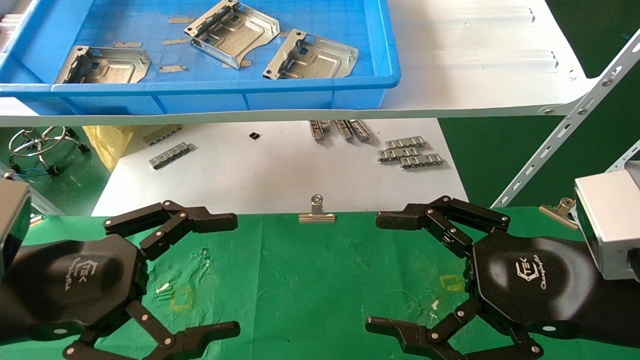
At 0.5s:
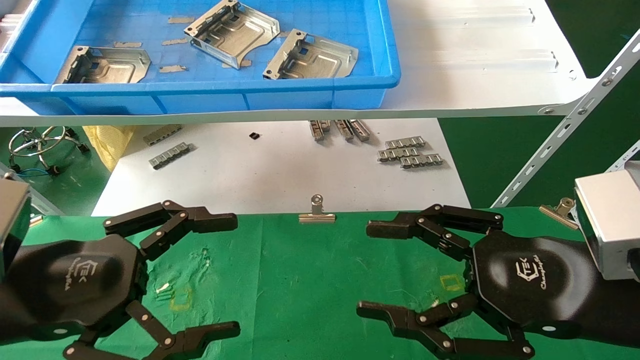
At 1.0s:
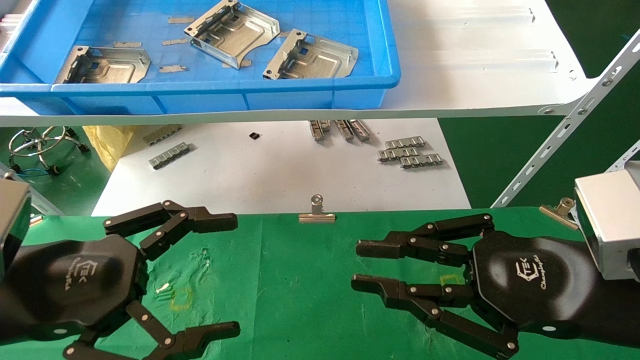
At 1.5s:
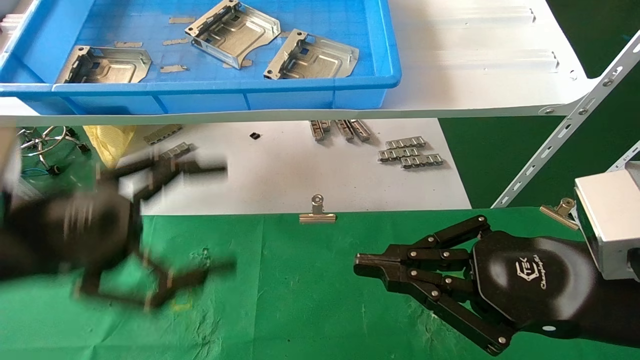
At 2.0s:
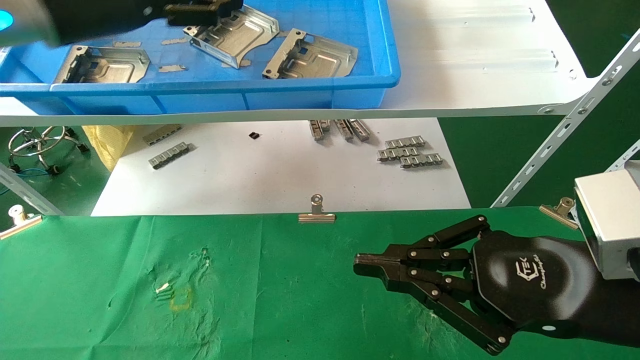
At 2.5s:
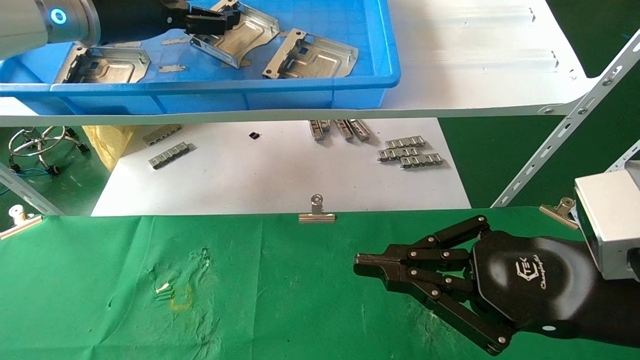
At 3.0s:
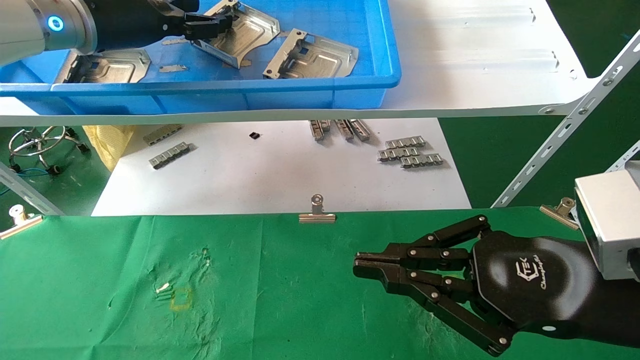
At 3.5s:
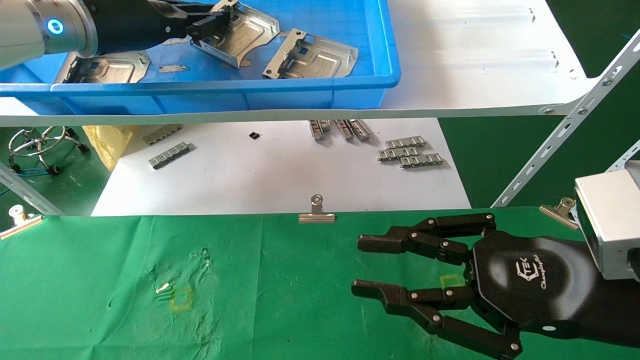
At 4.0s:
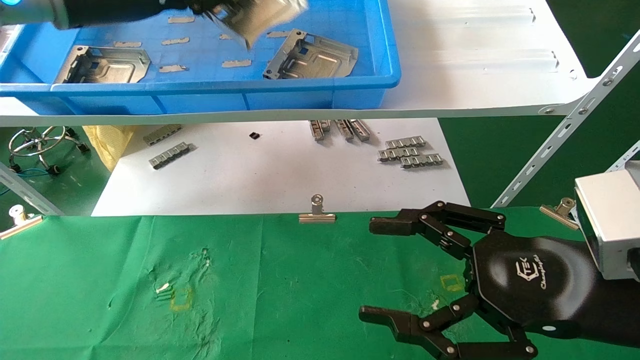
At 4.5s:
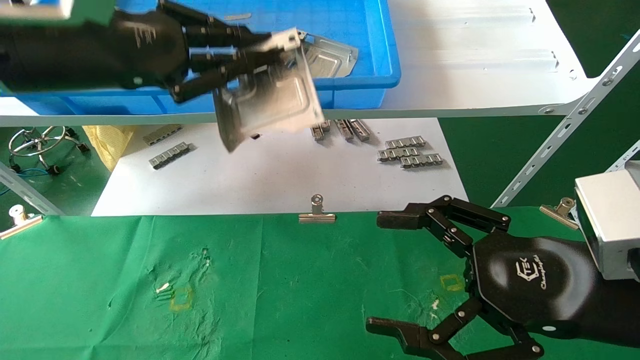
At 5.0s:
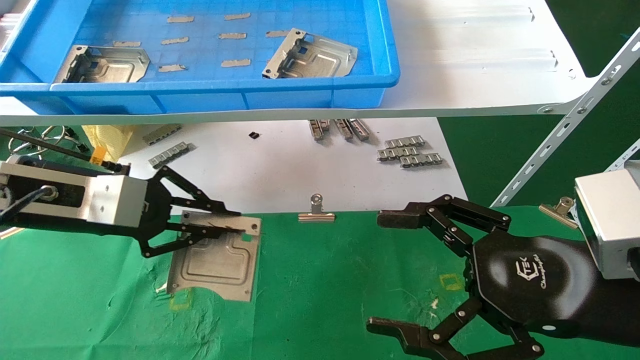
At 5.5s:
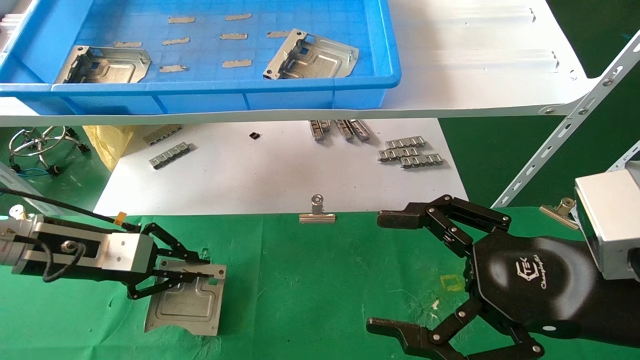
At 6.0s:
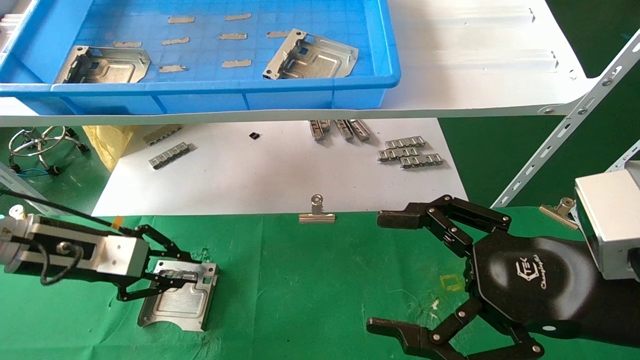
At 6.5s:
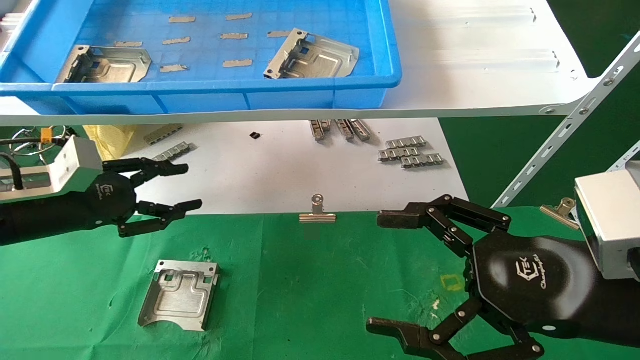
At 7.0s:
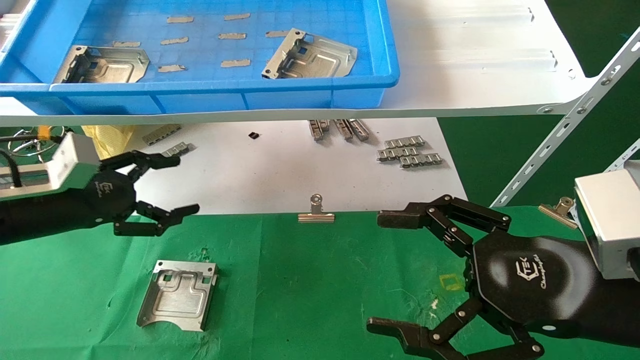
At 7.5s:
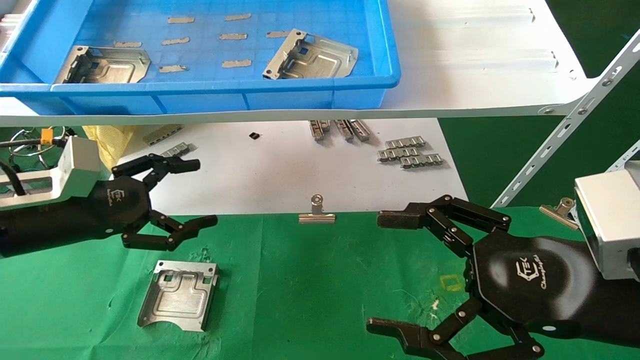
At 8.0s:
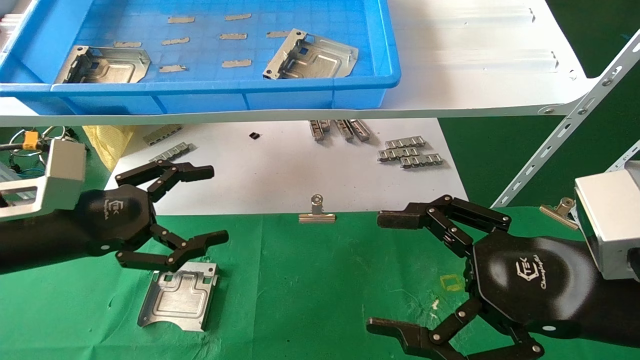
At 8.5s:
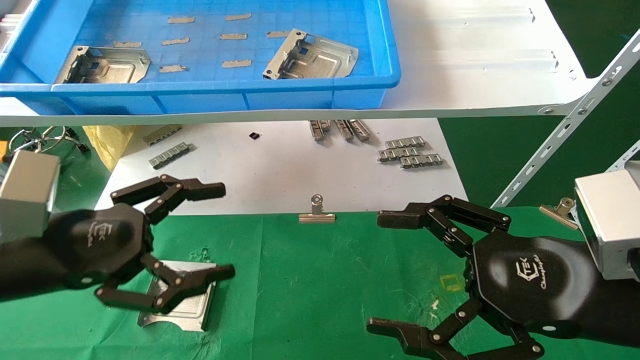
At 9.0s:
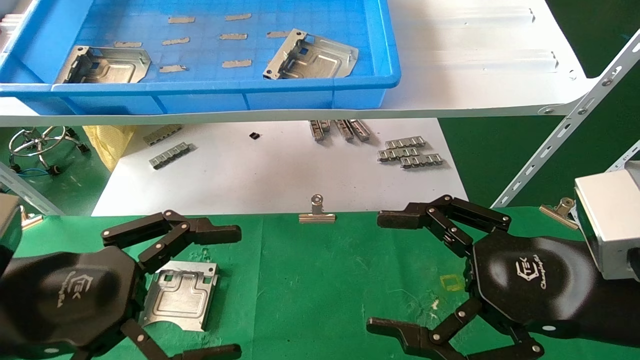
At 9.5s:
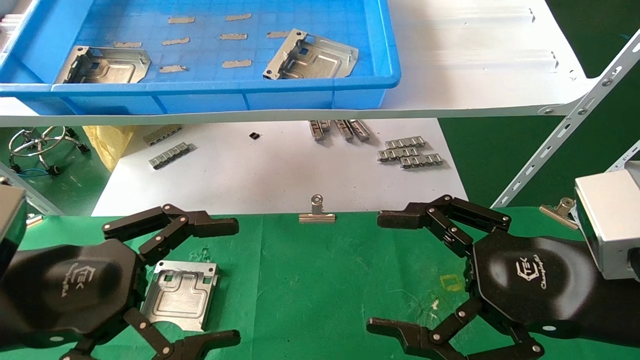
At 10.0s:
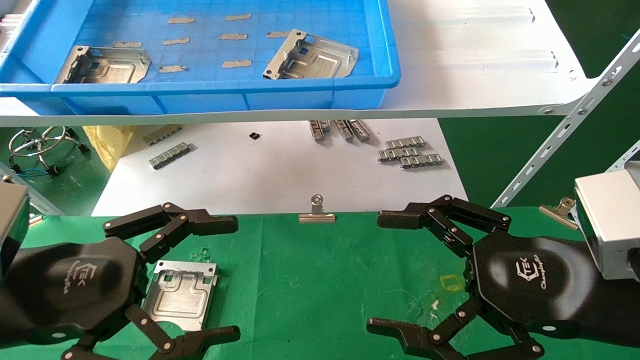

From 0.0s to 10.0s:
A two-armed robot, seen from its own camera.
Task of the whole recording: use the mechanical arm to pick up the parts and place them on the table.
Step, from 2.0s to 3.5s: Pick up the hard drive bracket from the feeding area.
Step, from 4.0s to 6.0s: Place the hard drive bracket into the box.
From 0.0s to 2.0s: The right gripper closes. Meanwhile the left gripper travels upward and forward by approximately 30 cm.
From 2.0s to 4.0s: The right gripper opens up. The left gripper closes its fingers.
From 4.0s to 6.0s: The left gripper is displaced downward by about 25 cm, while the right gripper opens its fingers.
From 6.0s to 8.0s: The left gripper travels backward by about 5 cm, and opens up.
From 8.0s to 10.0s: The left gripper is displaced backward by about 10 cm.

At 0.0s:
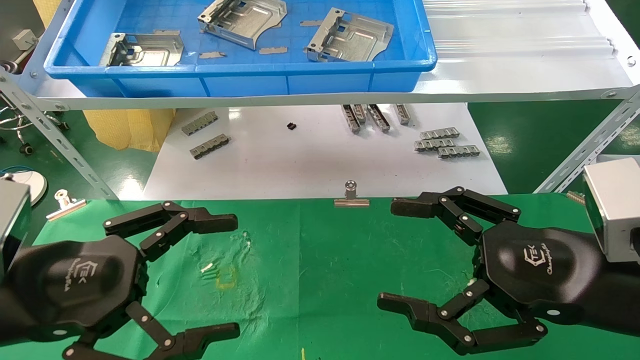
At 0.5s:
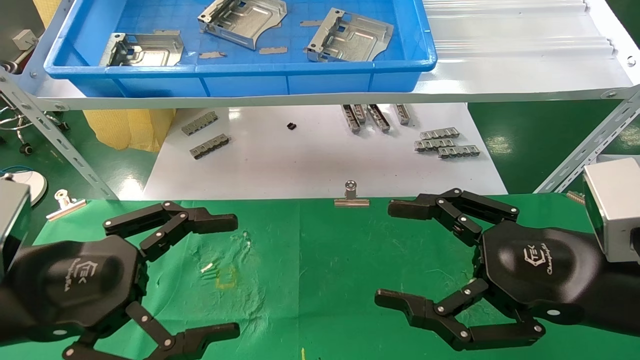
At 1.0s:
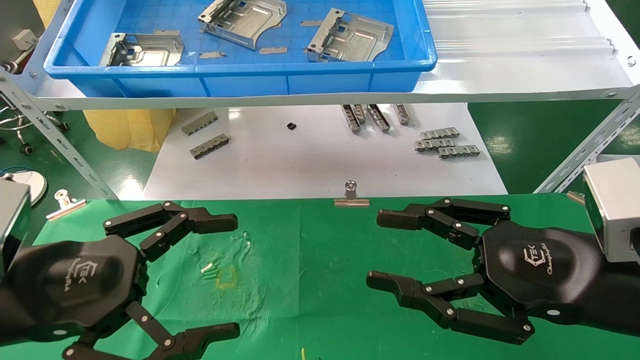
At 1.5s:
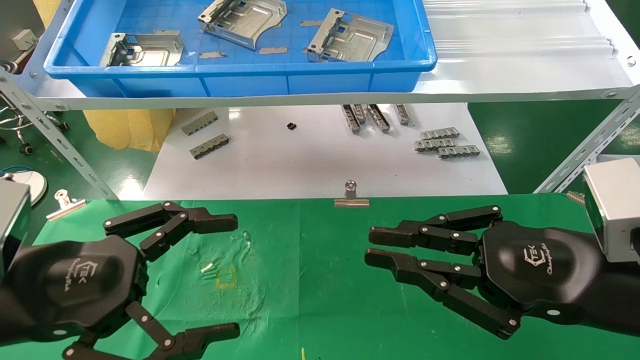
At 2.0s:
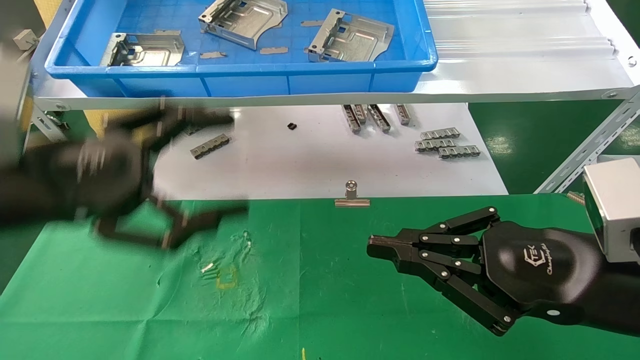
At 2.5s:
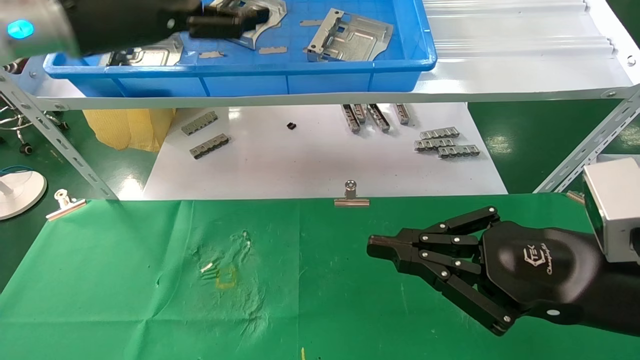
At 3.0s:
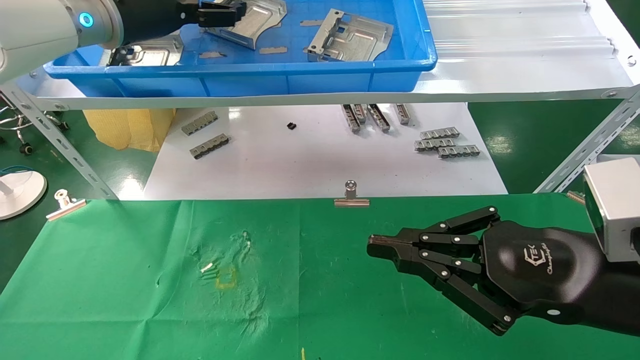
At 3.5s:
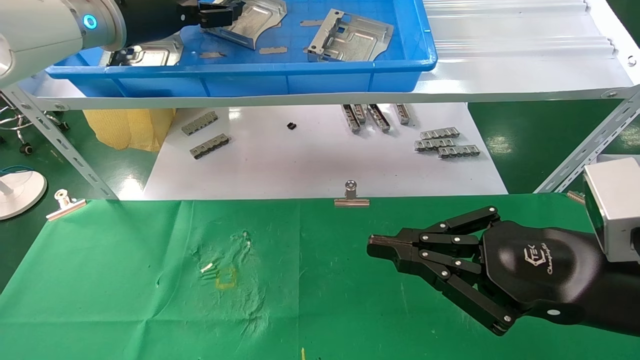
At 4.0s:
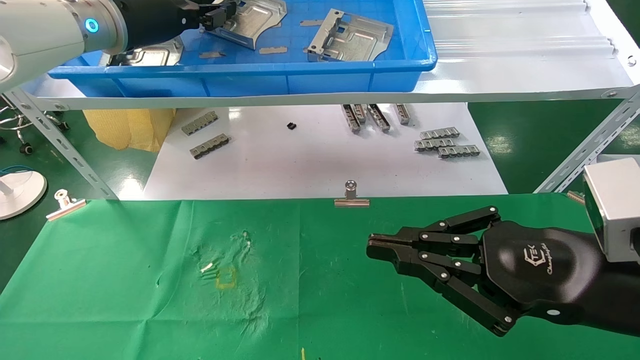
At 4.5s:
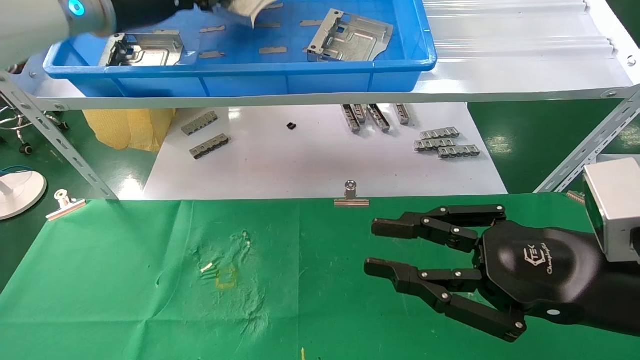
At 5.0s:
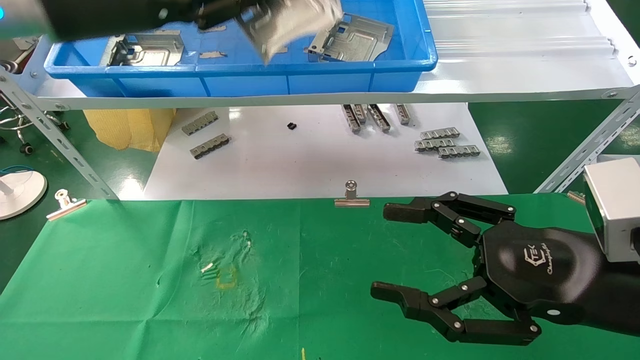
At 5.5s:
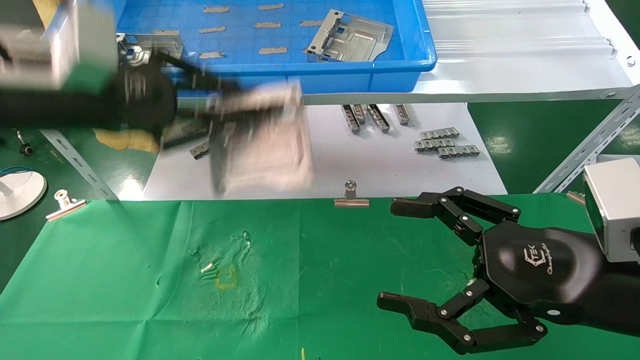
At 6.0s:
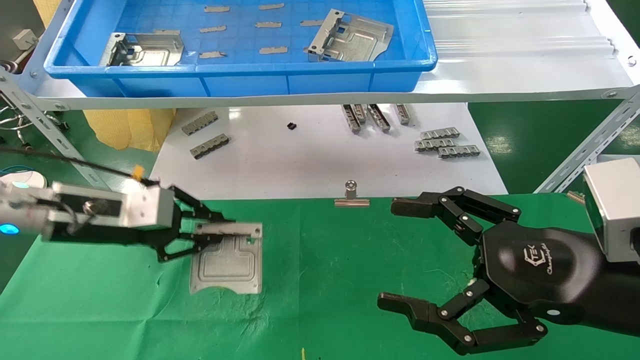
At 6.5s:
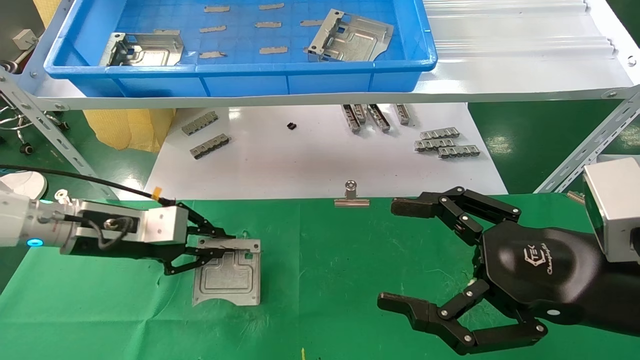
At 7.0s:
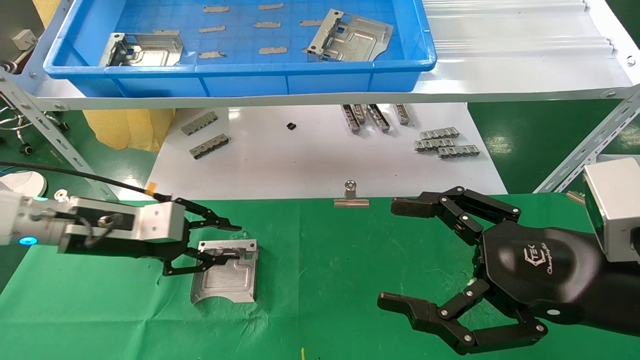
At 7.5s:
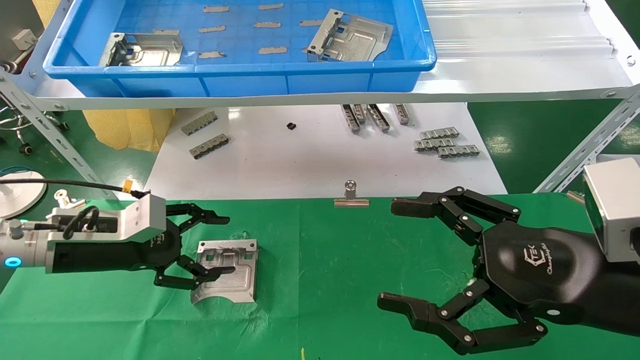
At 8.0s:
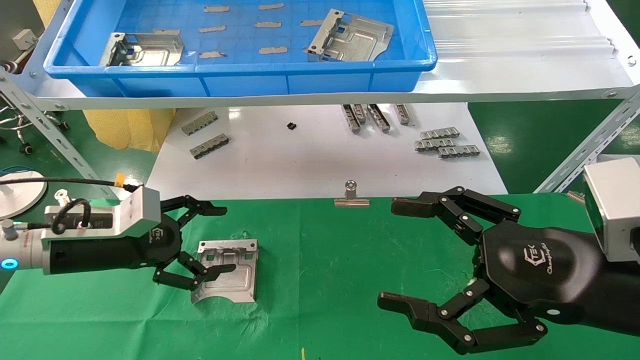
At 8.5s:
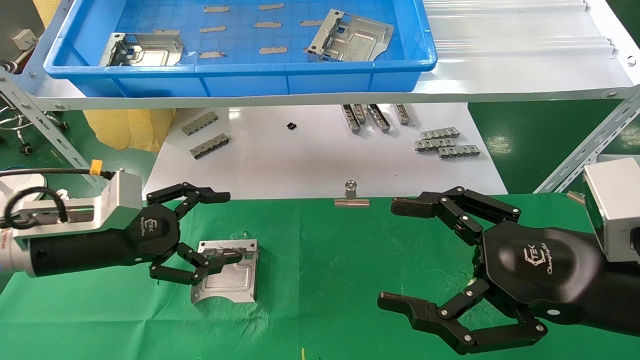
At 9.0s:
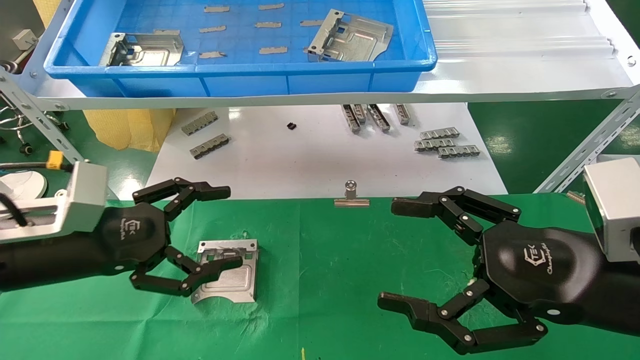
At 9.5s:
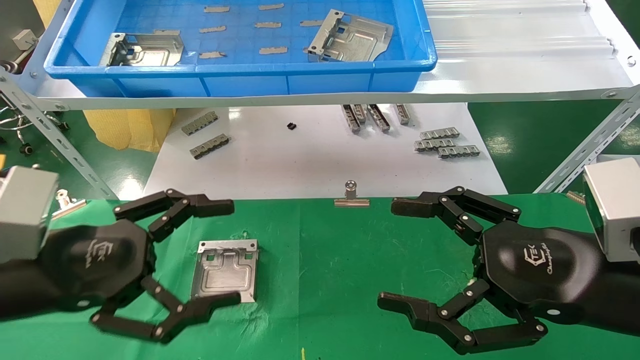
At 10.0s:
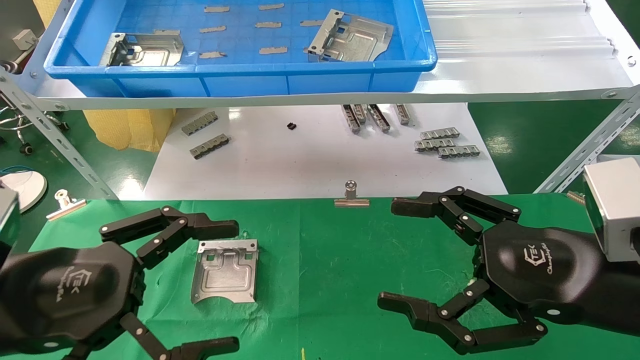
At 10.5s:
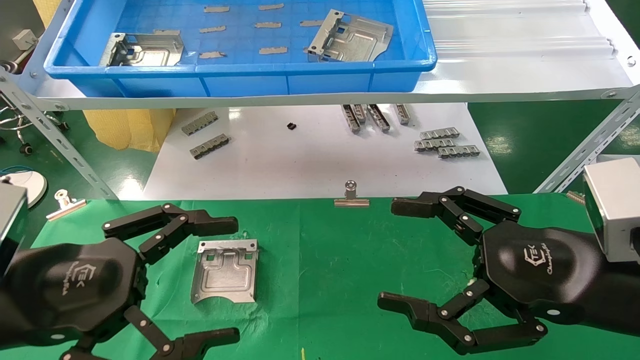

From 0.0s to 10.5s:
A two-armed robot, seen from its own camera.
Task of the whole recording: use the mechanical arm to pick up the parts and place them on the table.
Step, from 2.0s to 4.0s: Pick up the hard drive bracket from the feeding area.
Step, from 4.5s to 7.0s: Place the hard drive bracket into the box.
From 0.0s to 2.0s: The left gripper moves upward and forward, some 10 cm, while the right gripper closes up.
From 2.0s to 4.0s: The left gripper moves forward and upward, approximately 25 cm, and closes its fingers.
From 4.0s to 6.5s: The left gripper moves downward, about 25 cm, and closes its fingers, while the right gripper opens.
From 6.5s to 8.5s: The left gripper is displaced backward by some 5 cm, and opens up.
From 8.5s to 10.5s: The left gripper shifts roughly 15 cm backward.
